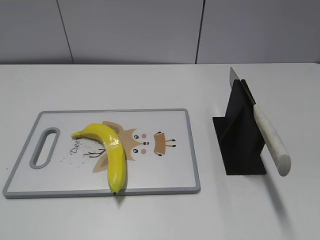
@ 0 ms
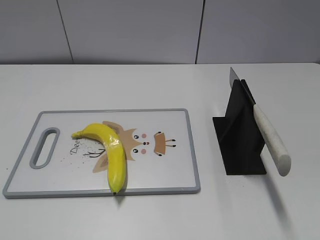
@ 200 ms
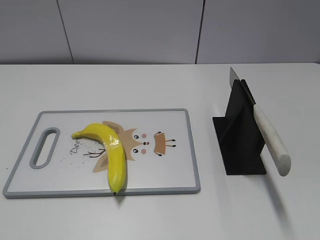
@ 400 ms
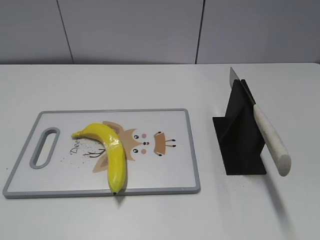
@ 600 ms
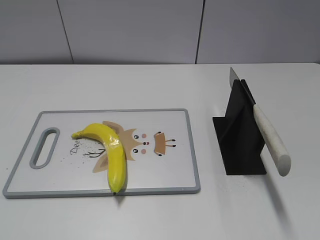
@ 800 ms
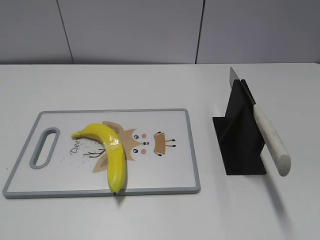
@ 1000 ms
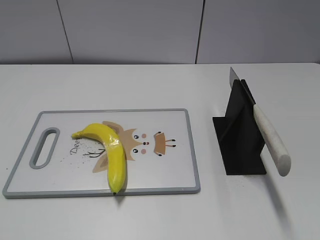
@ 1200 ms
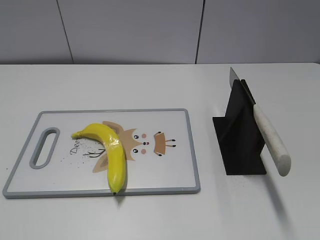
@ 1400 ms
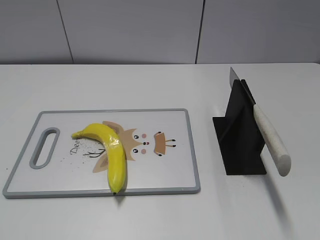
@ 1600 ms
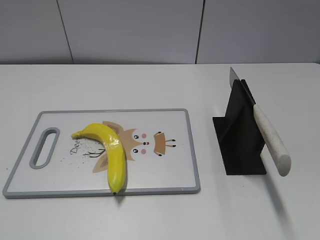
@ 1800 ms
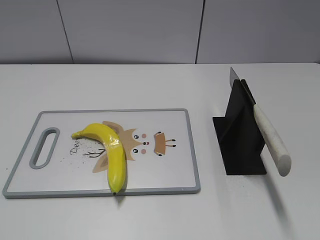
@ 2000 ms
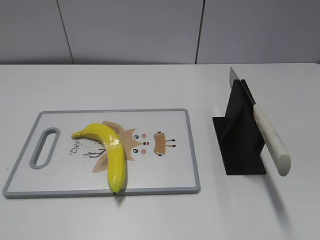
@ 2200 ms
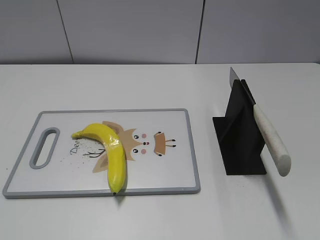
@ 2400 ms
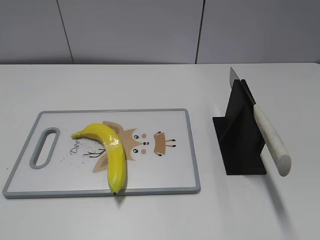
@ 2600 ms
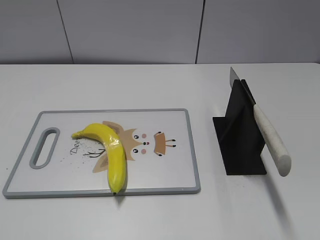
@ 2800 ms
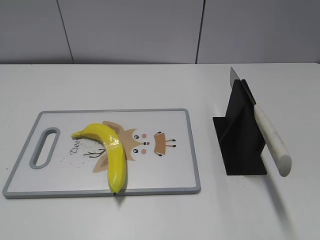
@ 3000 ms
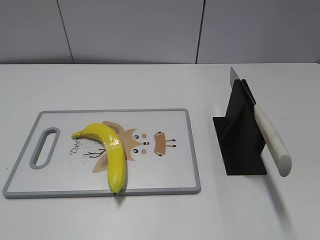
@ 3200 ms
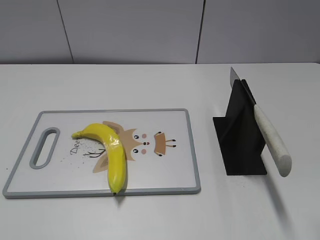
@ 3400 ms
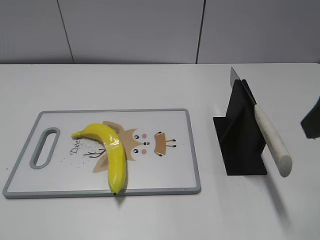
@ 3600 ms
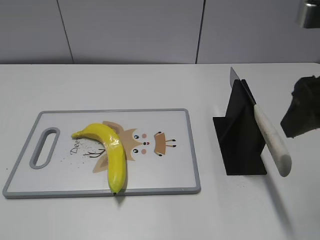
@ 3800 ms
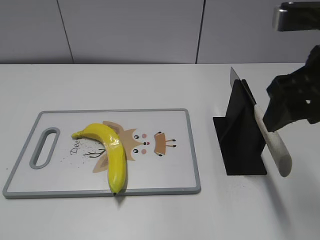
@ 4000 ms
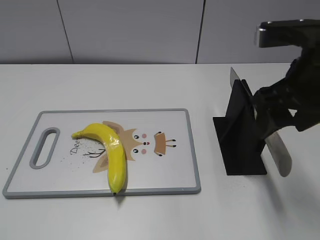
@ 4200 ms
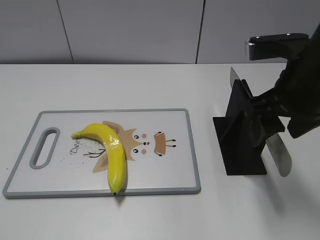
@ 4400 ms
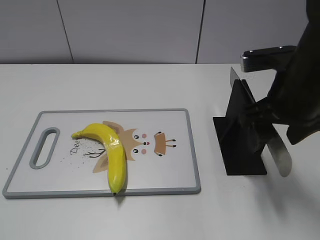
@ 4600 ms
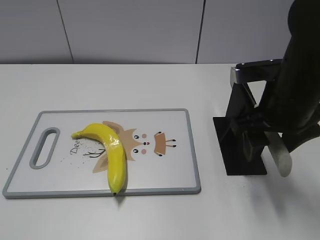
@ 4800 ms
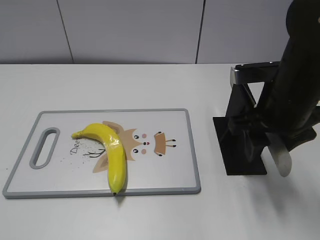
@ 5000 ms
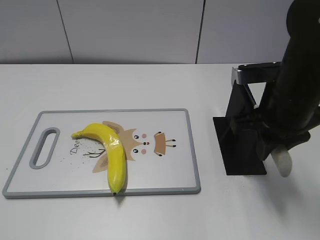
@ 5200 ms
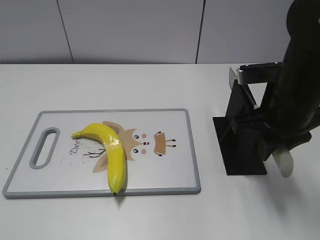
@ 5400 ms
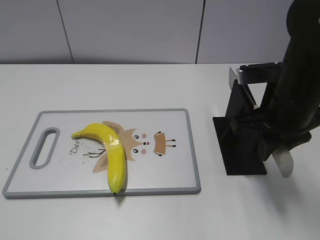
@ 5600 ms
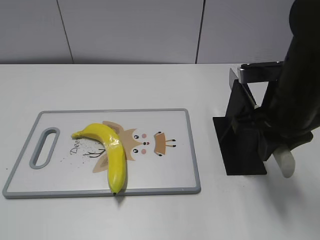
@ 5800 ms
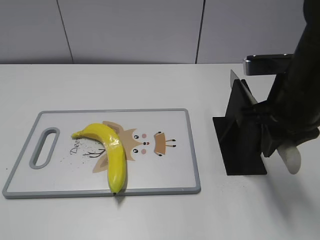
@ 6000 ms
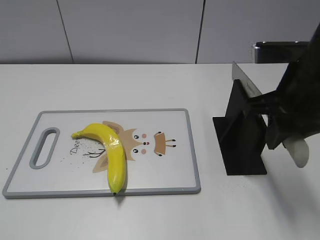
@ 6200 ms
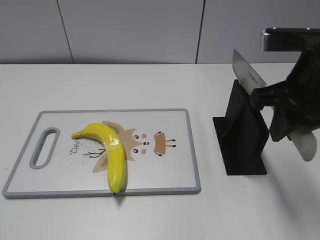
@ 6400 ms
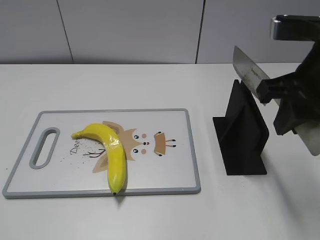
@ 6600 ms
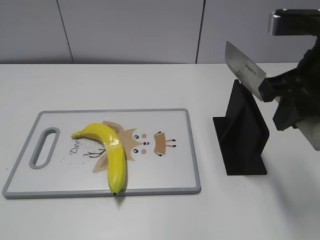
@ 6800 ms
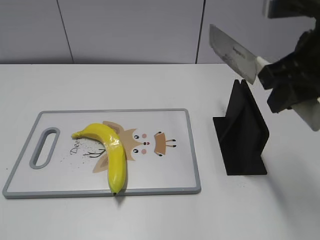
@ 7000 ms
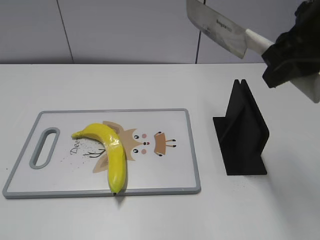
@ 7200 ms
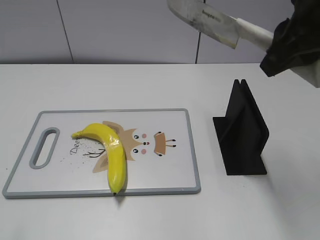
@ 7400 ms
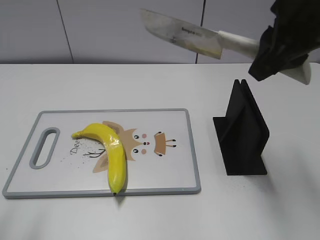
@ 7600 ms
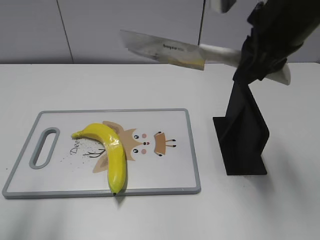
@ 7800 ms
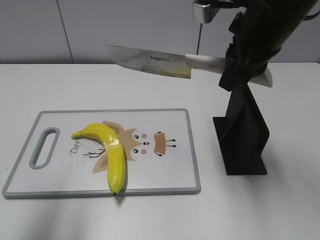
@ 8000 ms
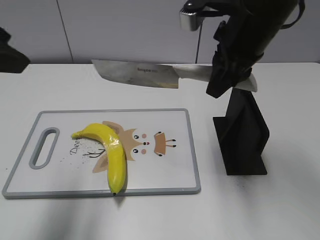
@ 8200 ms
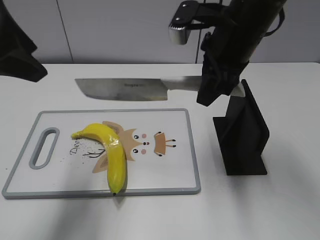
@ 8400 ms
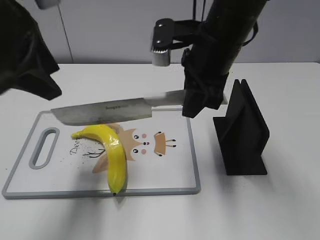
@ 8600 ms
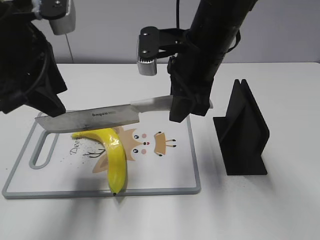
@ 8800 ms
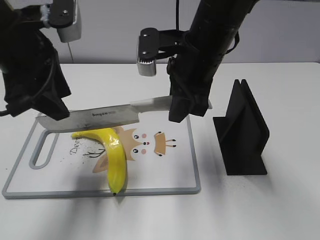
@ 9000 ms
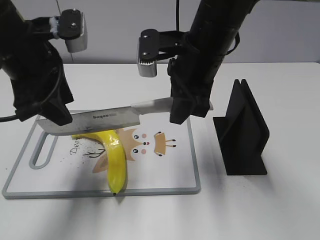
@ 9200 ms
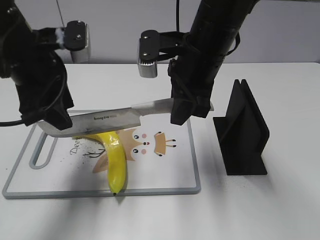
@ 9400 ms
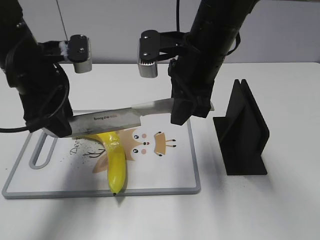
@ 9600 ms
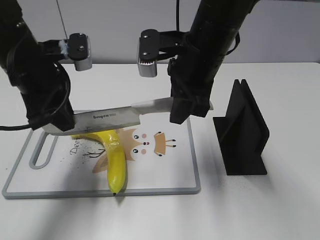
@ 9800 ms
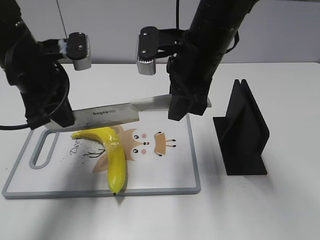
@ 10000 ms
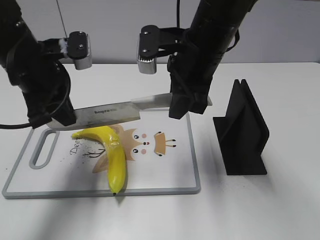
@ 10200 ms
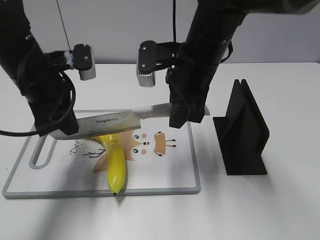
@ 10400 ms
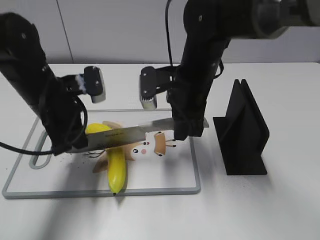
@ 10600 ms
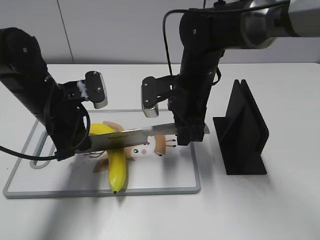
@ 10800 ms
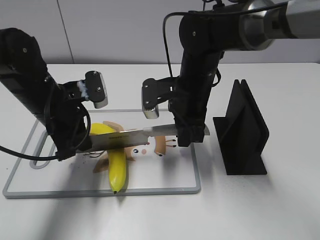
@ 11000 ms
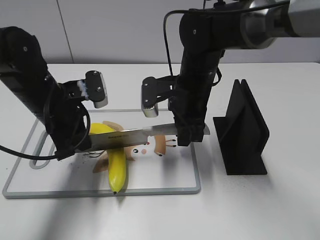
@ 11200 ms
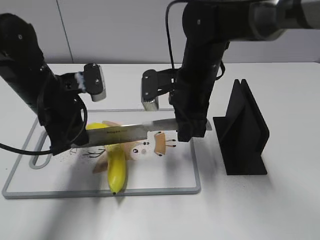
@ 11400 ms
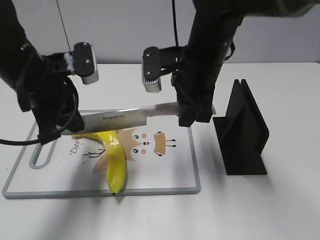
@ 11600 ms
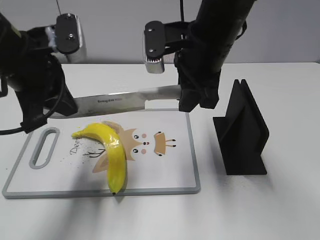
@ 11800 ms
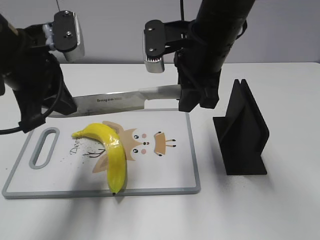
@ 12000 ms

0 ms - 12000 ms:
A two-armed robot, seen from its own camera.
Task of the whole recording: cut plastic banana.
Step, 0 ms - 6400 ms: Grab the knife handle with your right hand.
Step, 6600 ms - 11800 ms: Lift the knife with your right hand.
3000 ms - 4400 ms: The right gripper is displaced forward, to the left and downward by approximately 20 cm.
4400 ms - 6000 ms: The right gripper closes up.
6000 ms - 7600 ms: The right gripper moves upward, some 10 cm. The left gripper is displaced forward and upward by some 10 cm.
7600 ms - 9000 ms: The right gripper shifts roughly 15 cm to the left, downward and forward. The left gripper travels forward and to the right by approximately 20 cm.
9000 ms - 10400 ms: The left gripper heads downward, covering some 5 cm, and closes its fingers.
10400 ms - 12000 ms: The left gripper ends up about 5 cm from where it was, while the right gripper travels downward and back again, some 10 cm each way.

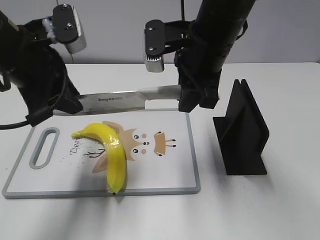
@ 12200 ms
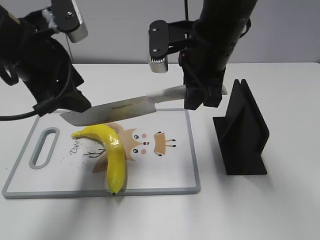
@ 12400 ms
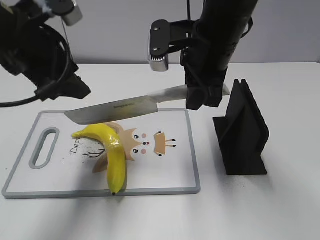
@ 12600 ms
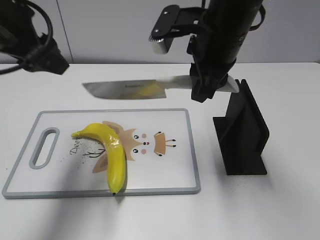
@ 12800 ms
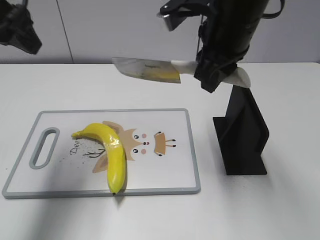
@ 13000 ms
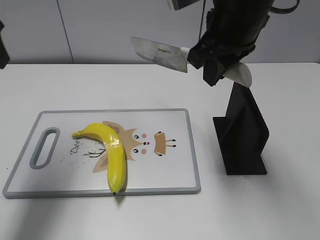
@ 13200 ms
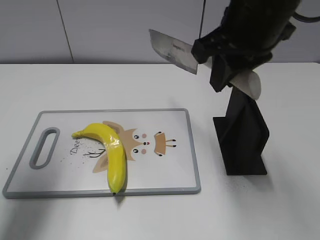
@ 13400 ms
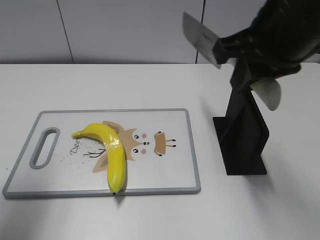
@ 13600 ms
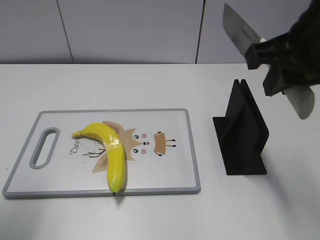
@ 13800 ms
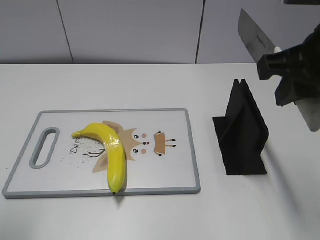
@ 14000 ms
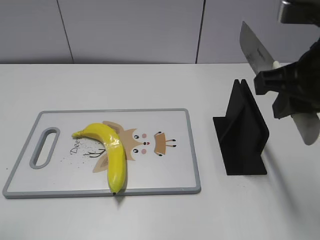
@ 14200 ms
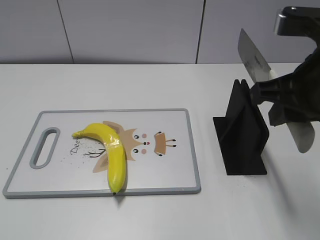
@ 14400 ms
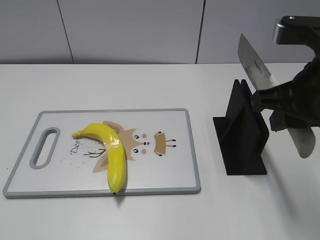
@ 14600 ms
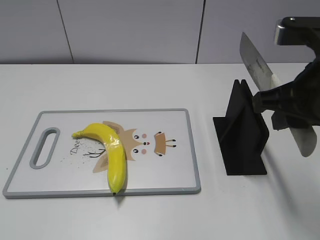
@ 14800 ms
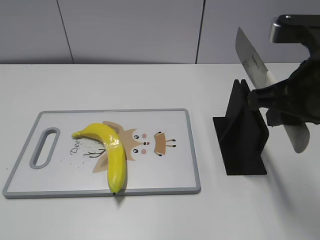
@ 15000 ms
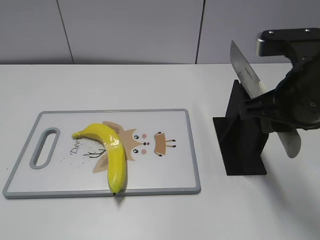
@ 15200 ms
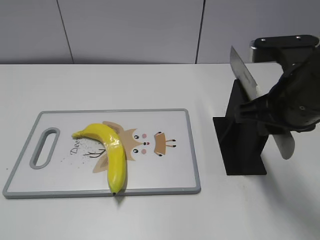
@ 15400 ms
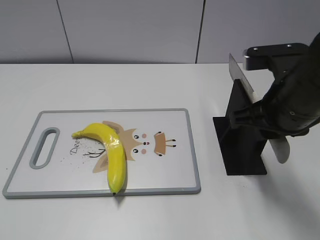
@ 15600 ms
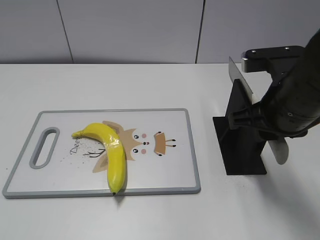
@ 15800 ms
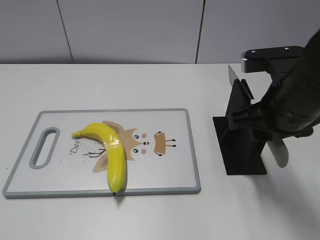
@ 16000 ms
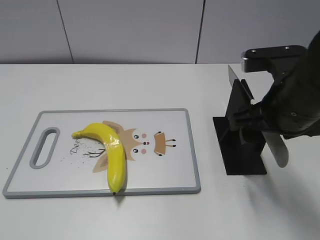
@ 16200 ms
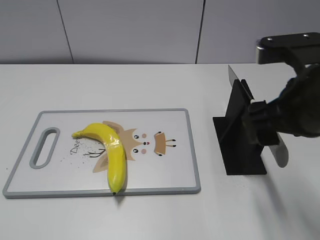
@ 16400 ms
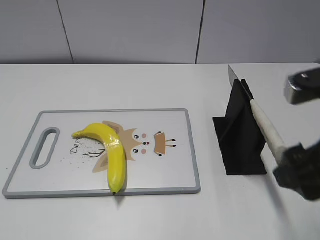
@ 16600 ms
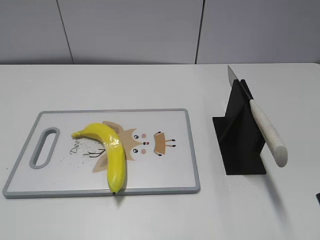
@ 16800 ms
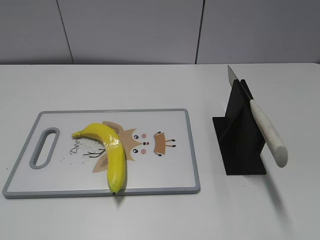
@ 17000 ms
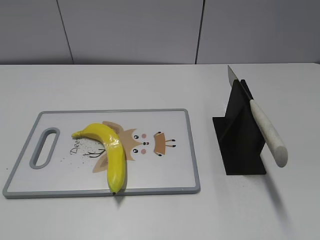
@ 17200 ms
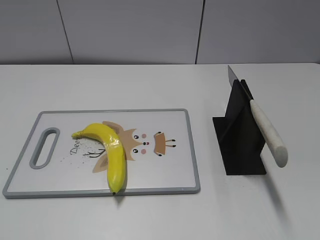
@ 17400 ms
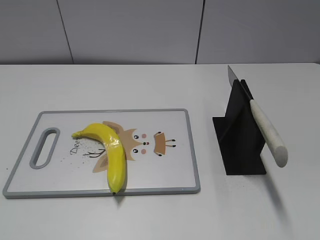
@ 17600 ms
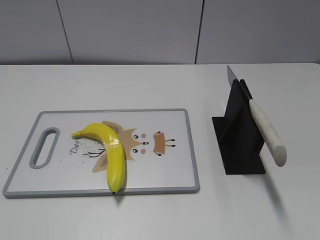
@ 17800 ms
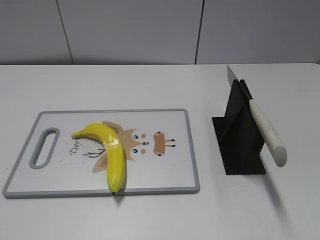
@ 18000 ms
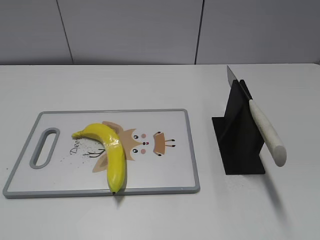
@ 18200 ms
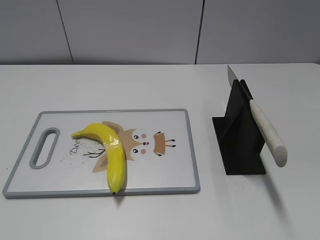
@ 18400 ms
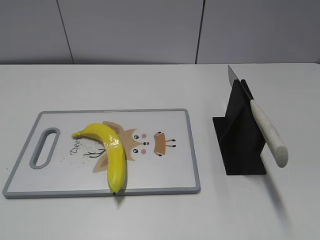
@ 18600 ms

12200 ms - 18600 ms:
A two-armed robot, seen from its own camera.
Task of the whole recording: cut plastic banana.
Step, 12200 ms - 13200 ms: Cut the banana with your right hand.
Step, 13400 ms - 15000 ms: Lift the knife with your right hand.
Step, 15400 ms - 18600 ms: Place the knife on the storage rack with your right hand.
12200 ms - 13800 ms: The right gripper heads backward, to the right and upward, covering some 15 cm. The left gripper shifts roughly 15 cm to the left, backward and upward, and opens its fingers.
13800 ms - 15400 ms: The left gripper travels backward by roughly 20 cm; the right gripper moves downward, about 10 cm.
15400 ms - 17000 ms: The right gripper heads backward and to the right, covering about 20 cm, and opens its fingers.
